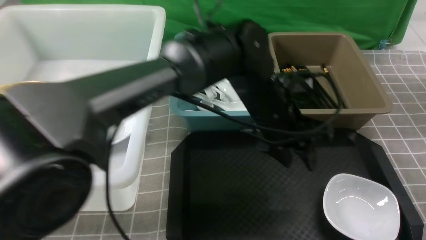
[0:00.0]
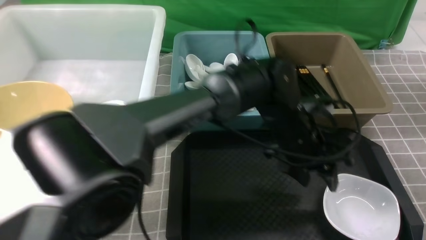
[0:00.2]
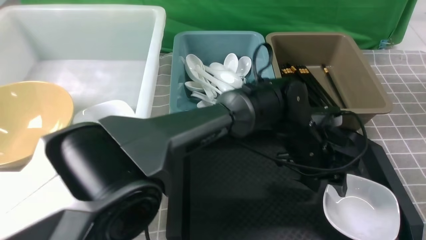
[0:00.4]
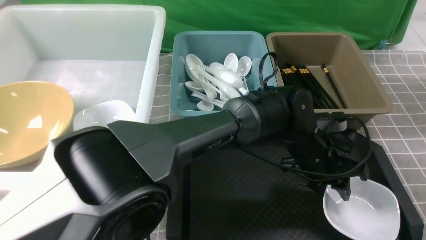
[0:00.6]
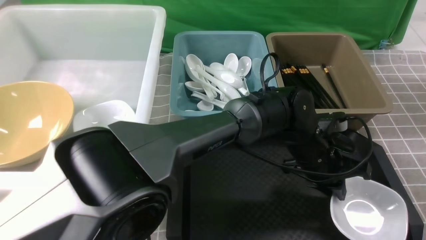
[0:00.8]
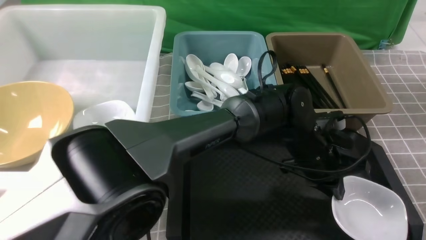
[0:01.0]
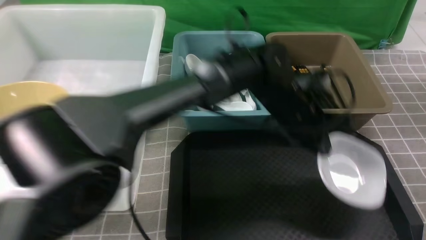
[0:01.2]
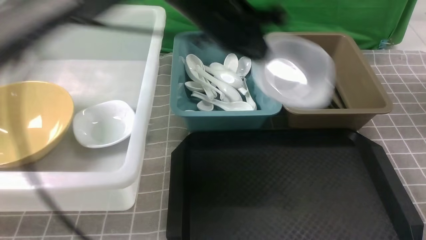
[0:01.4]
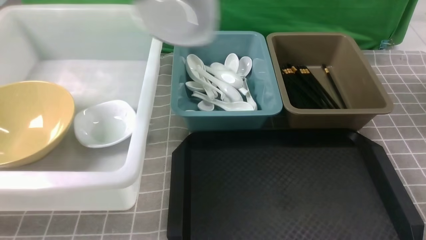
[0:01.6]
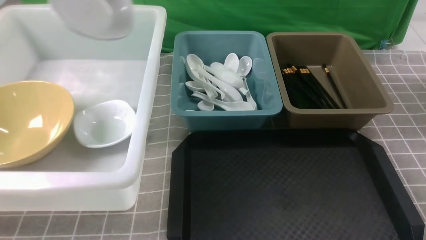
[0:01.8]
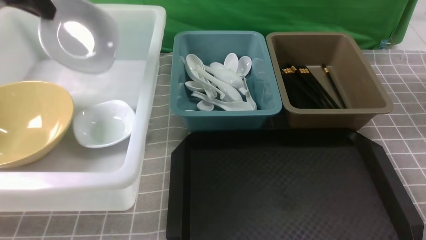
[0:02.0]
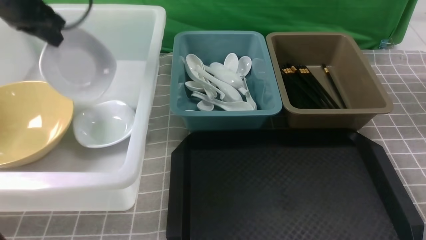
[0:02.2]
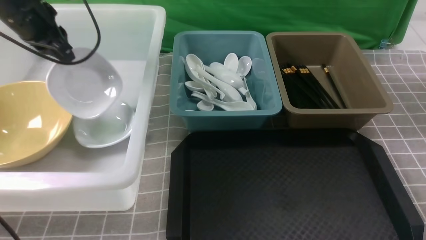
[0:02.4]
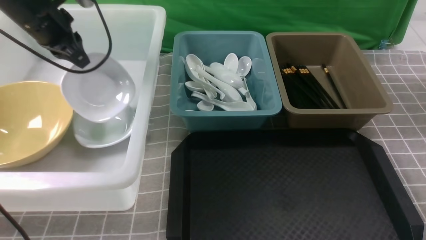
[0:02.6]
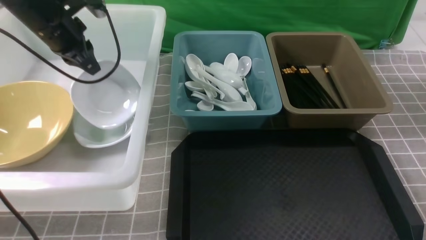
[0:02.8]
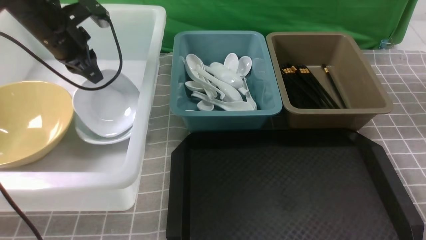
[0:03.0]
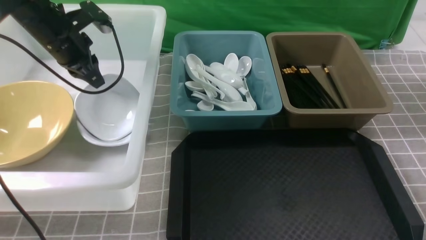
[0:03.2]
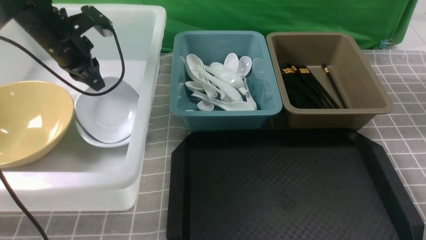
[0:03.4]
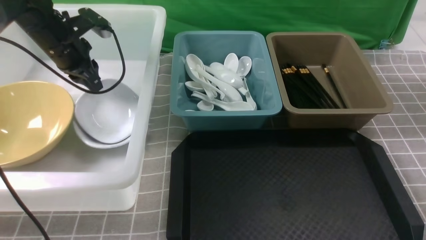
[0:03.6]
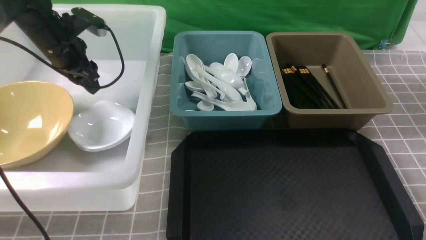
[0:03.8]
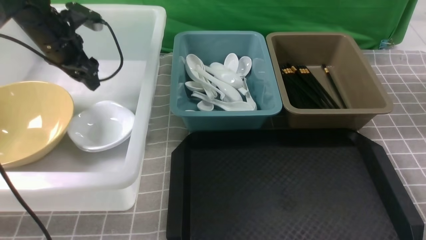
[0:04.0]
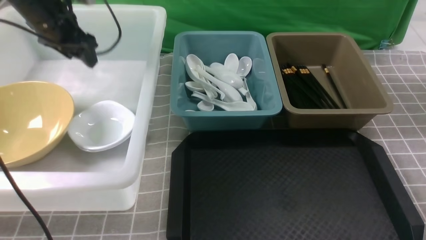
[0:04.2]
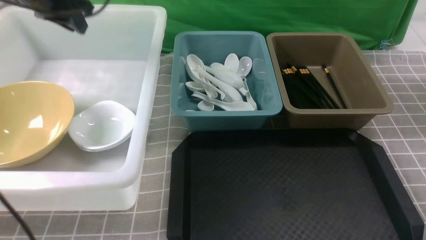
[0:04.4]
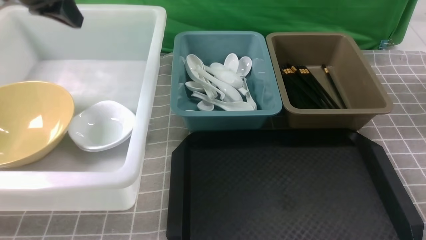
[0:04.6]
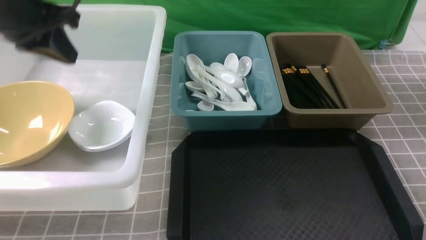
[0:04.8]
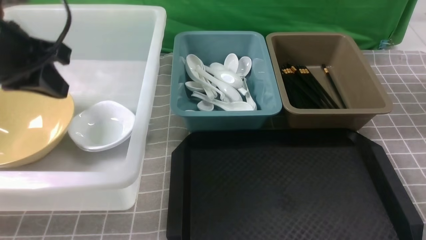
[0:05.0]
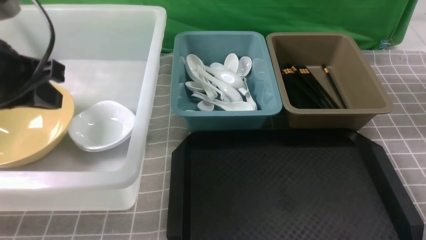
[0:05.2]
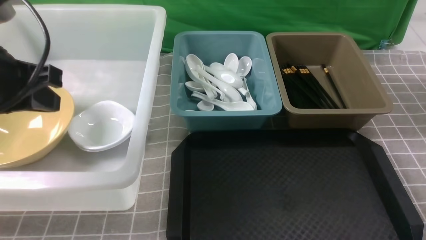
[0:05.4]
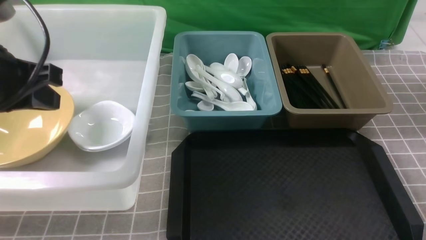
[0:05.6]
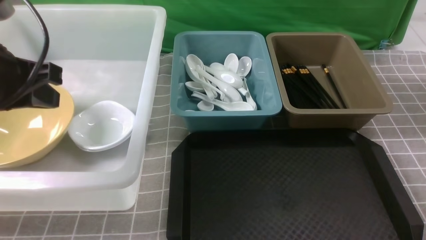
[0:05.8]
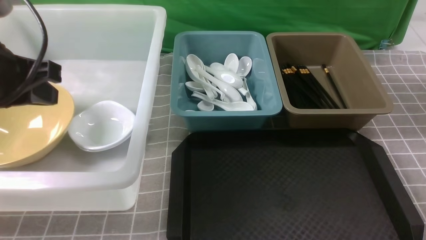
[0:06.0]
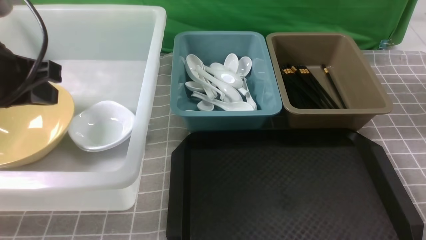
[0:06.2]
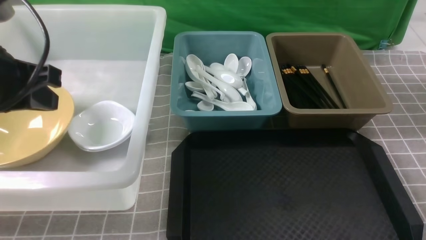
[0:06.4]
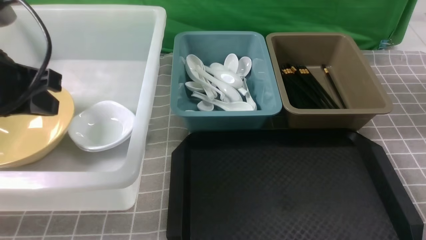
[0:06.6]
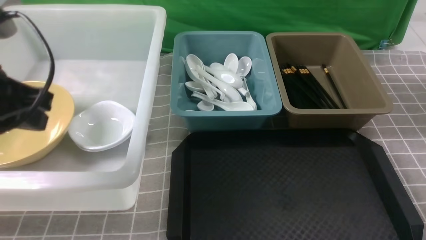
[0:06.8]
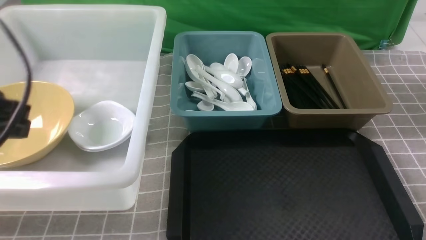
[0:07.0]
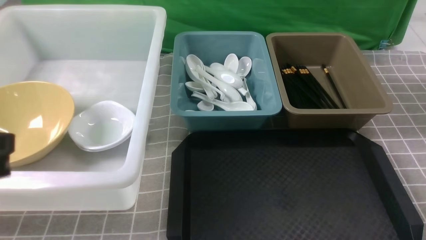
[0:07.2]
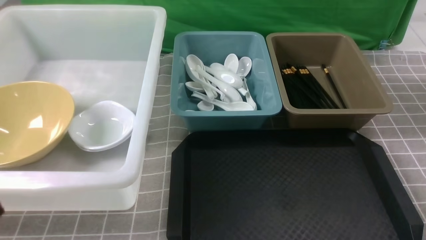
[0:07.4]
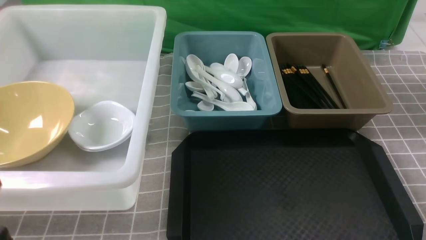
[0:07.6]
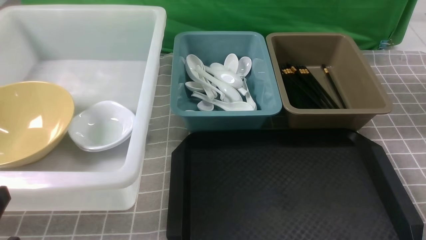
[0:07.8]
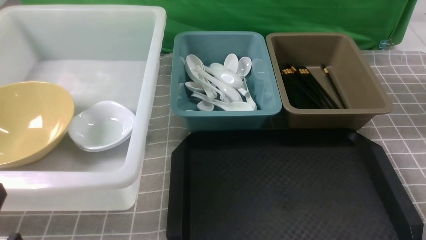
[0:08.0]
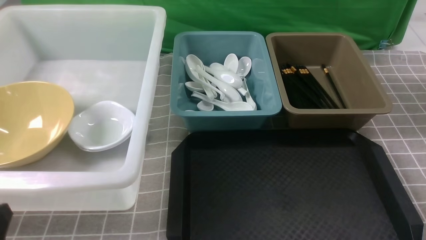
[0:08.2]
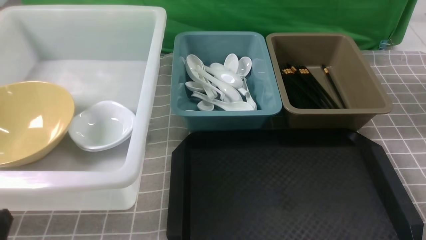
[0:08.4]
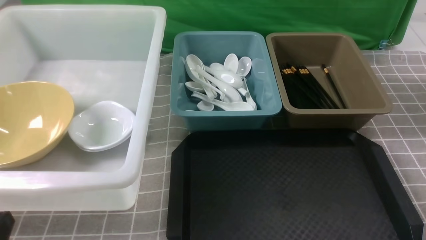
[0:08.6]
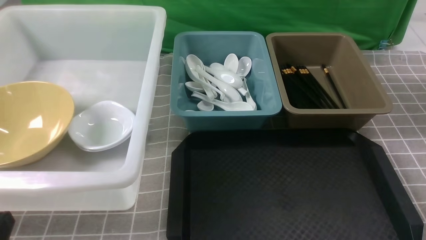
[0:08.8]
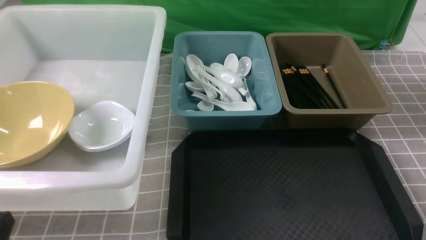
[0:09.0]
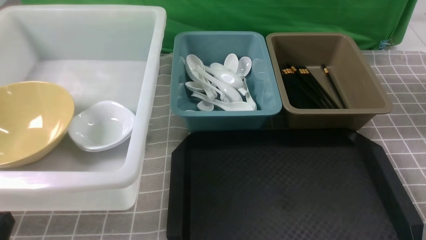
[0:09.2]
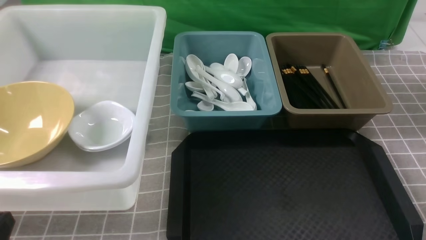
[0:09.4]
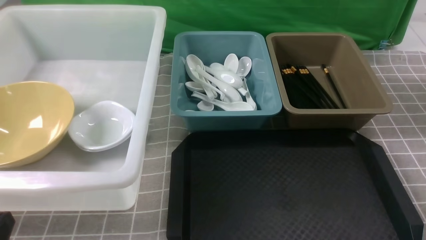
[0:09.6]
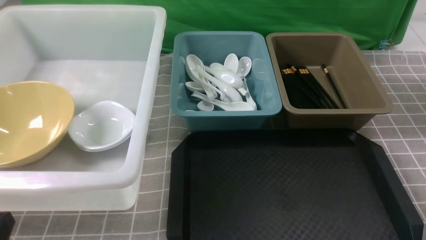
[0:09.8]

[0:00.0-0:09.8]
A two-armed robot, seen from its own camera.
Task of the whole recording: on grey table put chopsticks spoon bowls plates into blue grey white boxes.
Step, 0:01.4 to 0:04.0: use the left arm to put the plate into the large storage box on the left.
0:00.0 to 0:01.4: The left gripper moves to the left, upward and forward, roughly 20 cm, and closes up.
0:01.4 to 0:02.8: The left gripper heads to the left and downward, covering some 25 cm.
0:02.8 to 0:04.2: The left gripper opens up.
0:04.2 to 0:05.6: The left gripper is displaced backward by some 25 cm, and closes. The right gripper goes approximately 10 cm downward.
0:05.6 to 0:07.0: The left gripper goes roughly 10 cm backward.
0:07.0 to 0:08.4: The left gripper moves downward and backward, about 20 cm.
0:08.4 to 0:09.8: Neither gripper changes place.

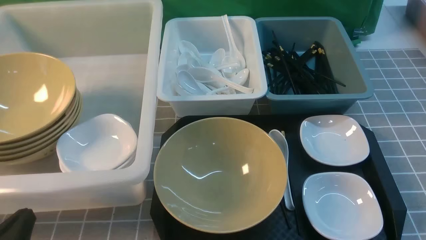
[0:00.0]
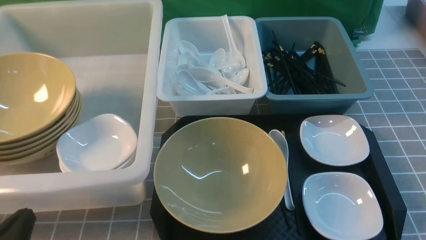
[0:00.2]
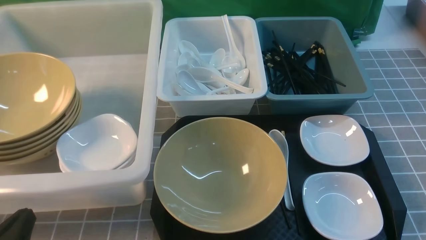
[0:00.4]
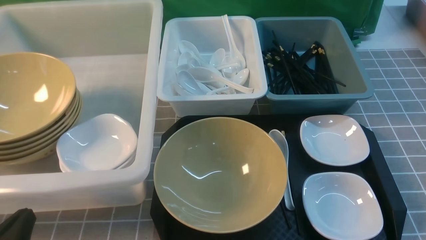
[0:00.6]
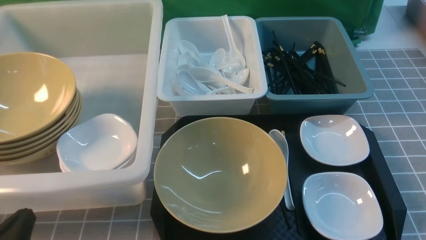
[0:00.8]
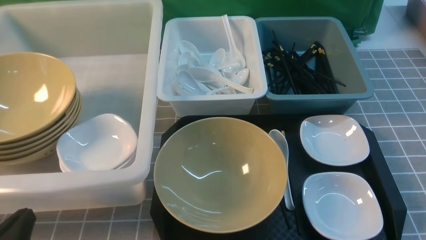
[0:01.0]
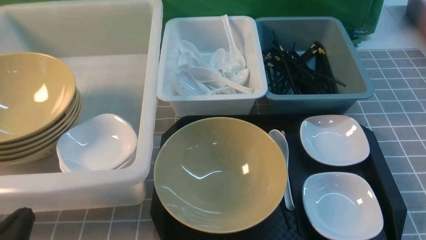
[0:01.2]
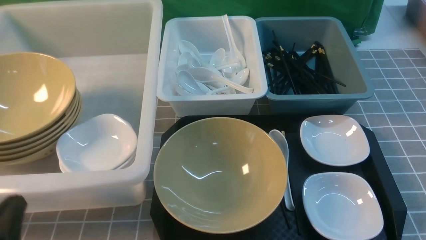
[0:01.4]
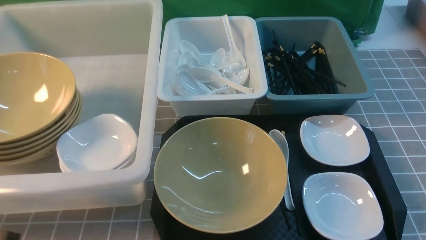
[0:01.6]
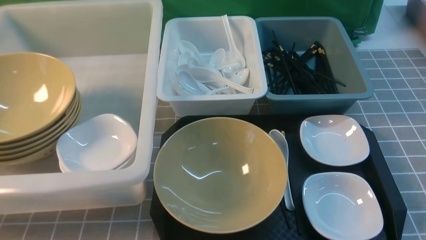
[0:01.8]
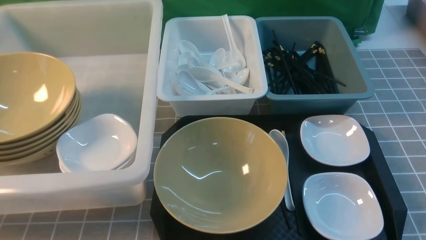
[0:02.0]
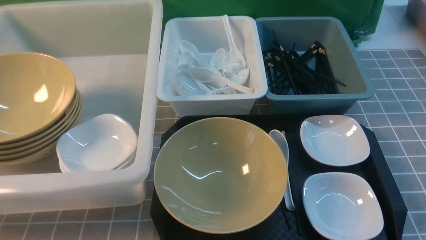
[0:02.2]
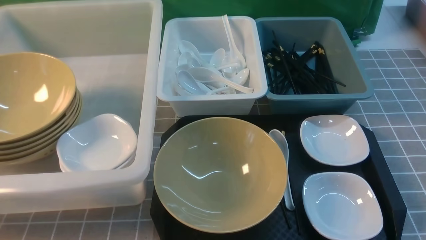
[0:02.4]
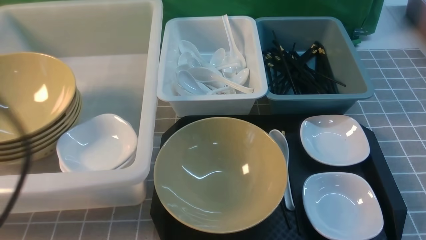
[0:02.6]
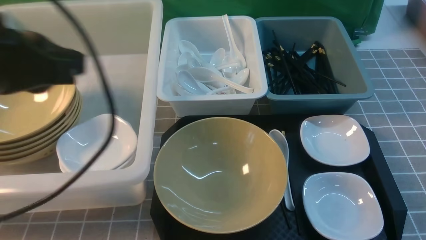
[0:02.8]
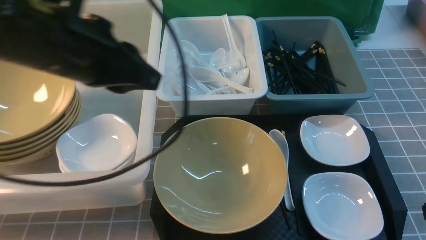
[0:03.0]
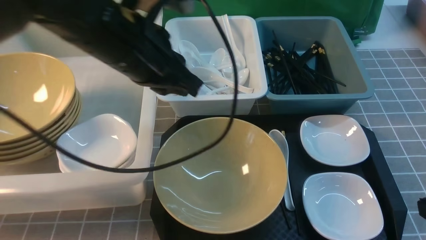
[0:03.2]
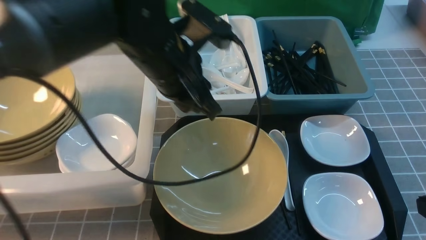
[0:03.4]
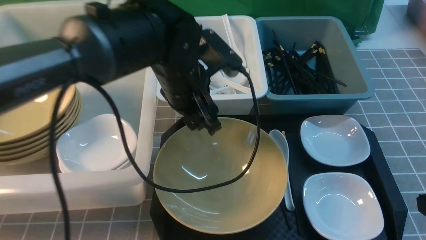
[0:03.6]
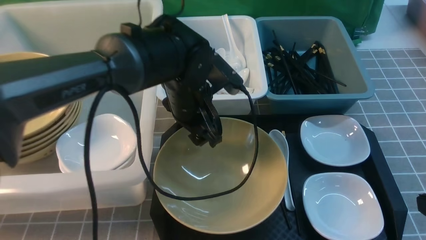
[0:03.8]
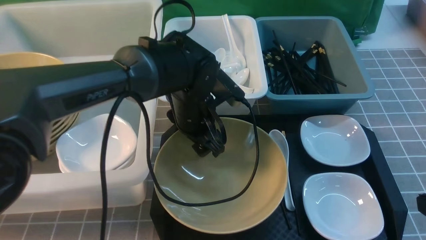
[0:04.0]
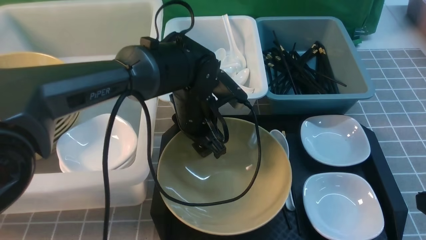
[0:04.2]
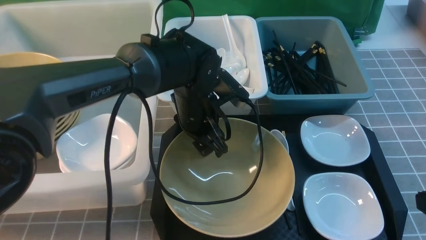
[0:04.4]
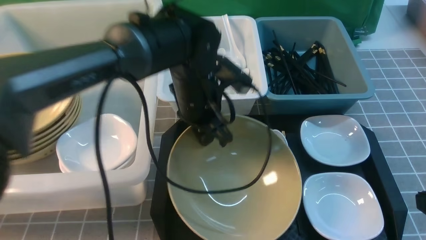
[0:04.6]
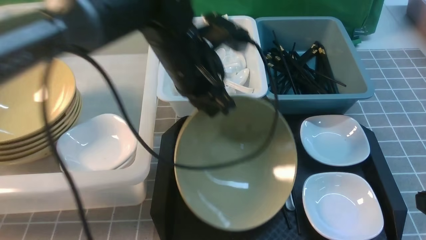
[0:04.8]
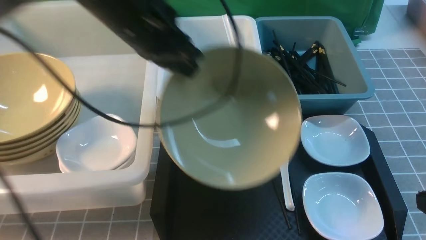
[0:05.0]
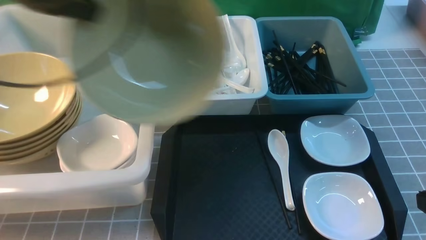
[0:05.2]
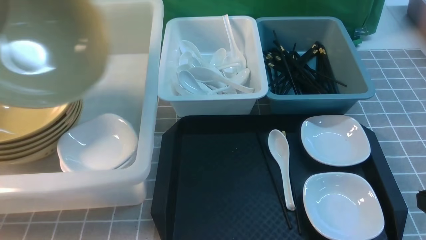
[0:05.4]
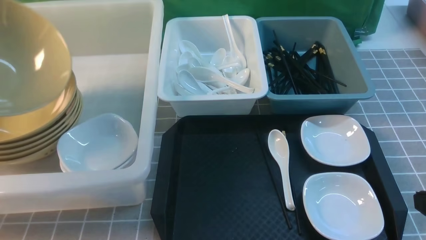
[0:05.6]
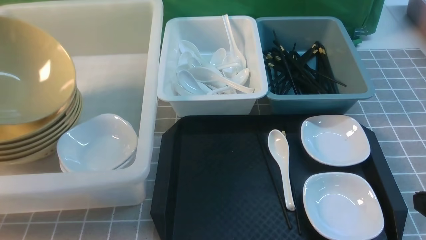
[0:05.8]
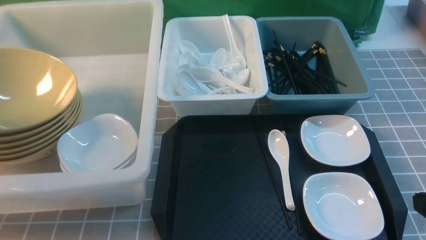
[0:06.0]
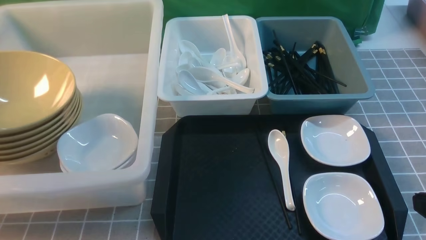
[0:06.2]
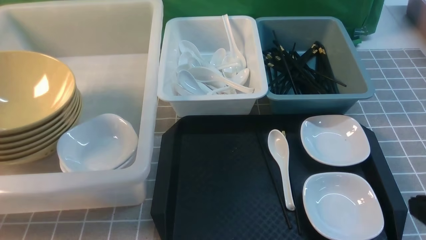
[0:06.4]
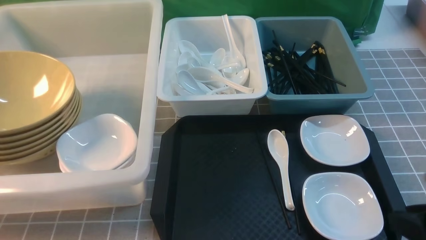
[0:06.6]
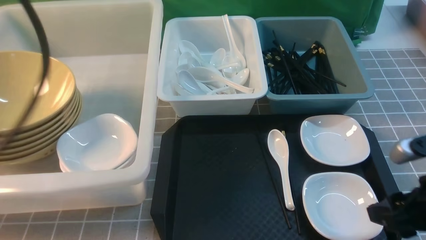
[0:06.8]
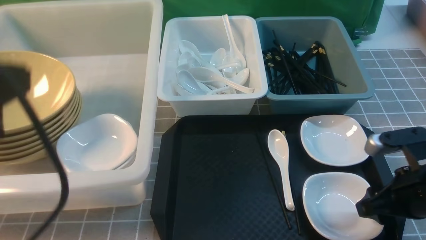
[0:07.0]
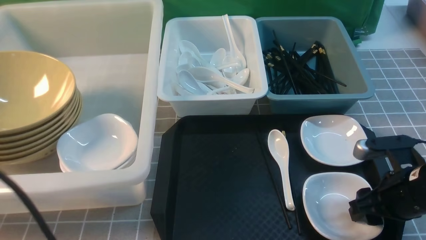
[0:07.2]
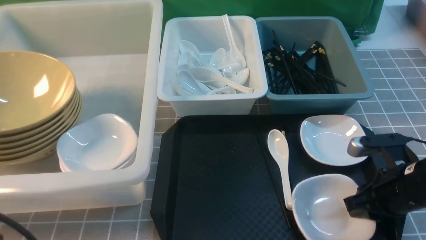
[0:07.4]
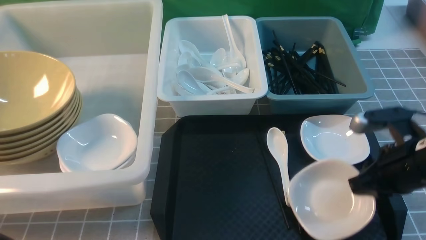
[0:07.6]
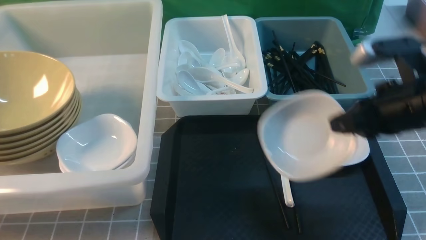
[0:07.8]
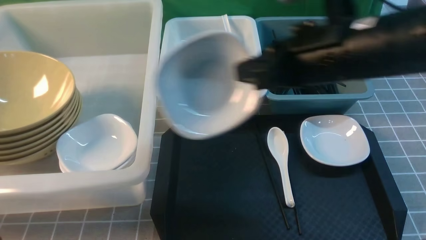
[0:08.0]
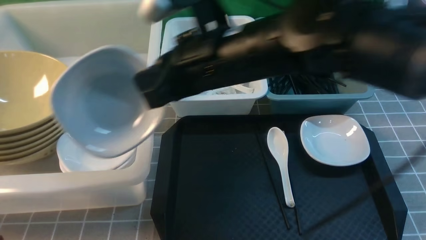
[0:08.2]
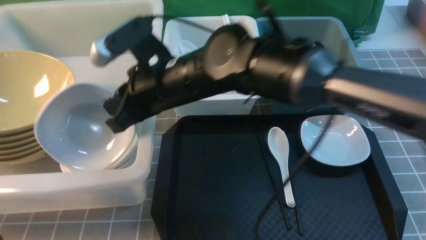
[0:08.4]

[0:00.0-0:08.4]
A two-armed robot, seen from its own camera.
Task of the whole recording: on grey table put chopsticks spoon bowls plates into blue grey white boxes.
Step, 0:00.0 to 0:04.8: use the left arm to grab the yellow noodle bowl on the left.
Step, 0:05.0 to 0:06.6: use the left arm to put the noodle bowl into the large storage box on the left.
Step, 0:06.8 to 0:07.6: use the right arm to grab the plate.
0:01.4 to 0:02.8: The left gripper travels upward and forward by about 25 cm.
0:02.8 to 0:04.2: The left gripper travels downward, to the right and forward by approximately 30 cm, and opens its fingers.
0:04.2 to 0:05.6: The left gripper travels to the left and upward by approximately 40 cm, and closes.
0:05.6 to 0:07.0: The right gripper travels forward and downward by approximately 10 cm, and opens; the left gripper moves to the right and backward, some 25 cm, and opens, then closes once more.
0:07.0 to 0:08.4: The right gripper heads to the left, covering approximately 30 cm, and closes up, while the left gripper is displaced downward and backward by about 15 cm.
